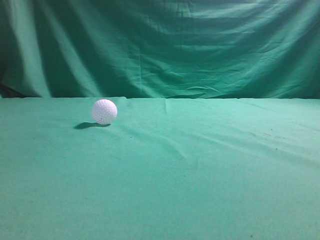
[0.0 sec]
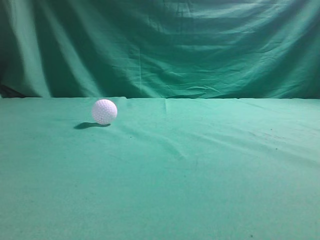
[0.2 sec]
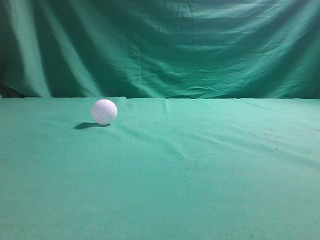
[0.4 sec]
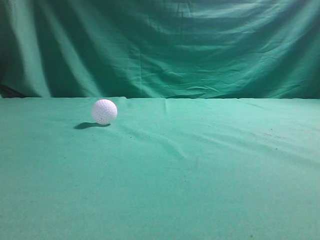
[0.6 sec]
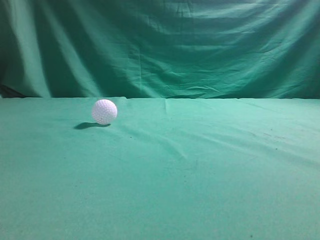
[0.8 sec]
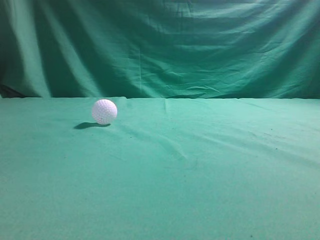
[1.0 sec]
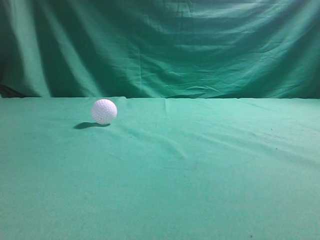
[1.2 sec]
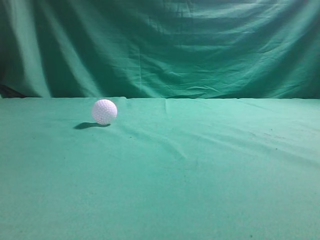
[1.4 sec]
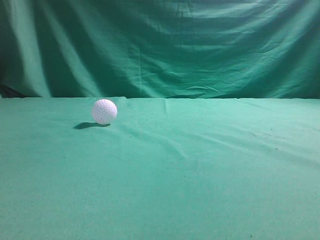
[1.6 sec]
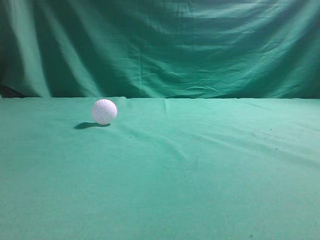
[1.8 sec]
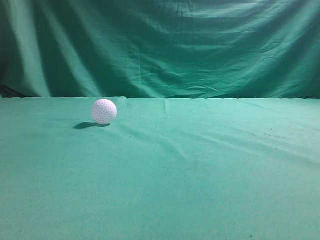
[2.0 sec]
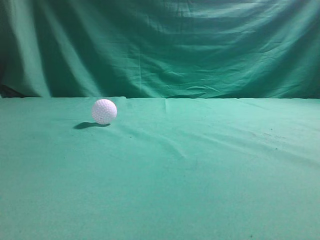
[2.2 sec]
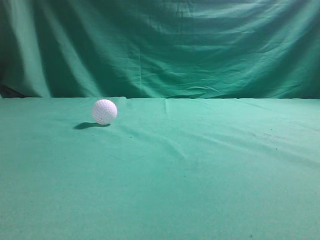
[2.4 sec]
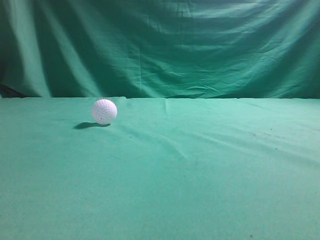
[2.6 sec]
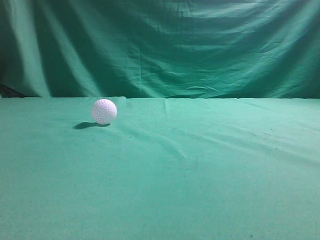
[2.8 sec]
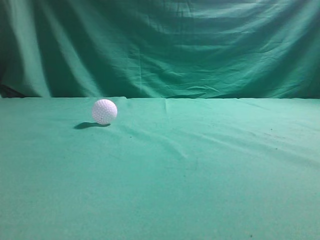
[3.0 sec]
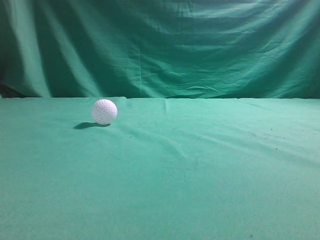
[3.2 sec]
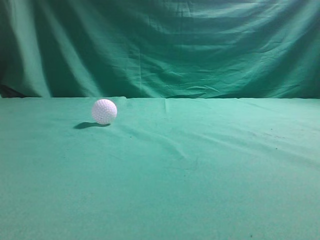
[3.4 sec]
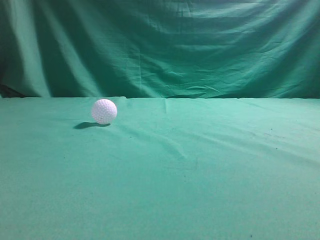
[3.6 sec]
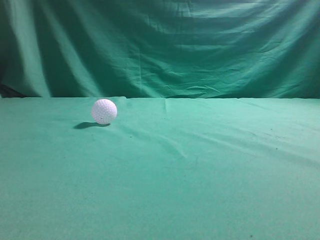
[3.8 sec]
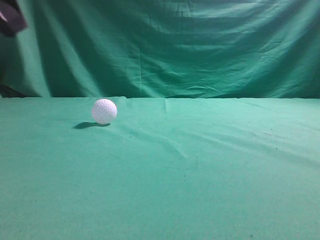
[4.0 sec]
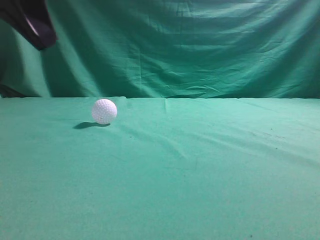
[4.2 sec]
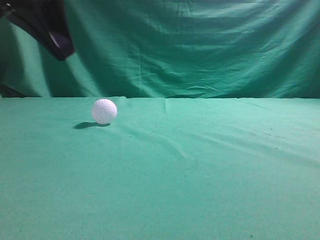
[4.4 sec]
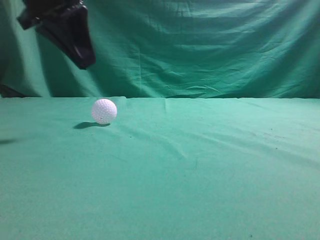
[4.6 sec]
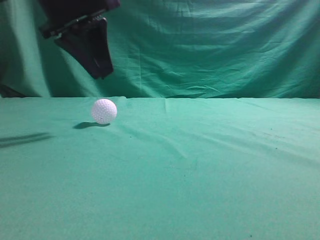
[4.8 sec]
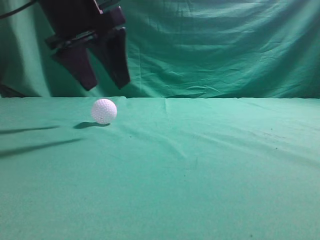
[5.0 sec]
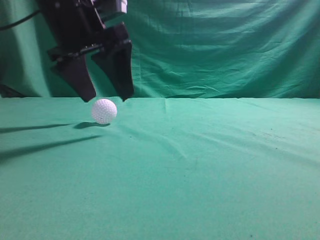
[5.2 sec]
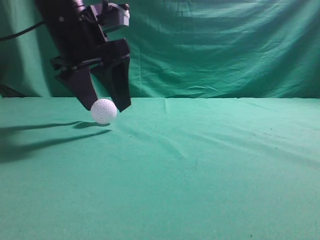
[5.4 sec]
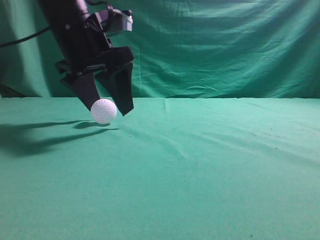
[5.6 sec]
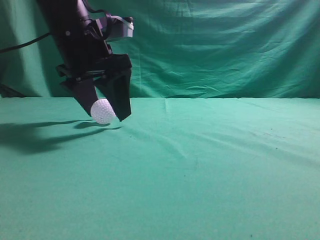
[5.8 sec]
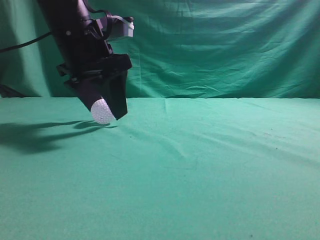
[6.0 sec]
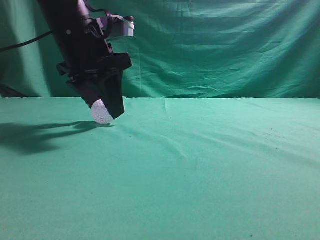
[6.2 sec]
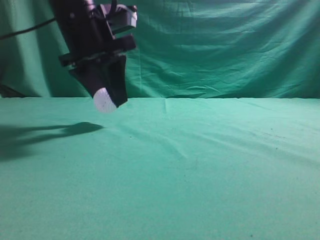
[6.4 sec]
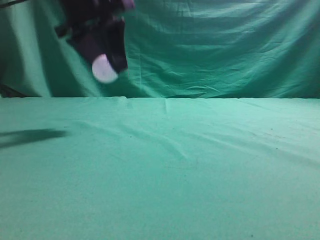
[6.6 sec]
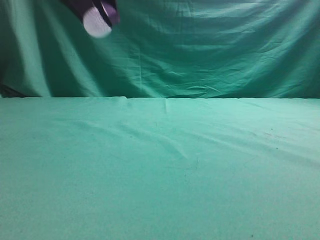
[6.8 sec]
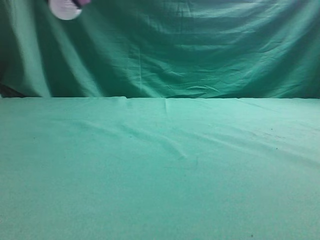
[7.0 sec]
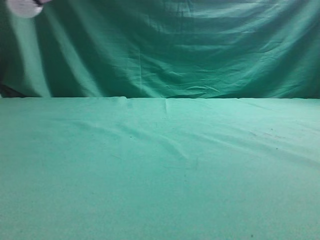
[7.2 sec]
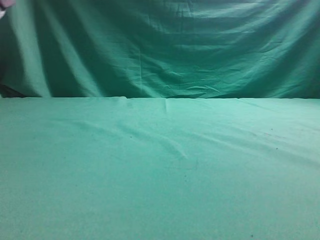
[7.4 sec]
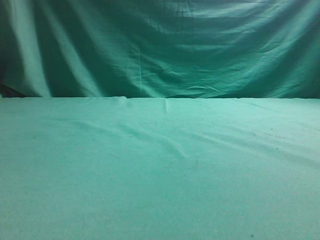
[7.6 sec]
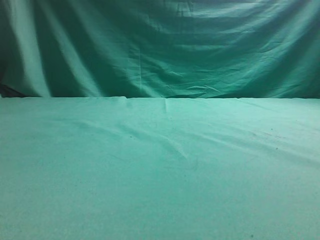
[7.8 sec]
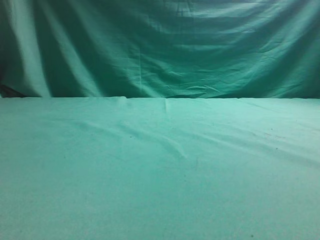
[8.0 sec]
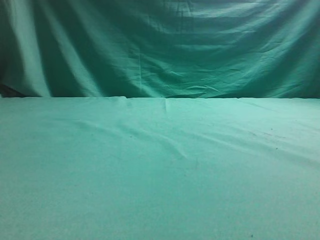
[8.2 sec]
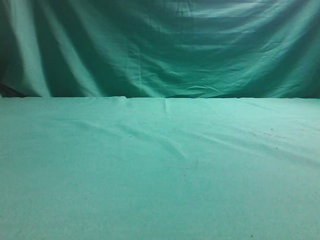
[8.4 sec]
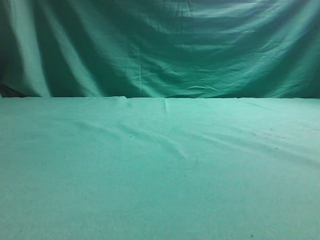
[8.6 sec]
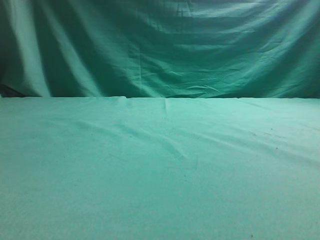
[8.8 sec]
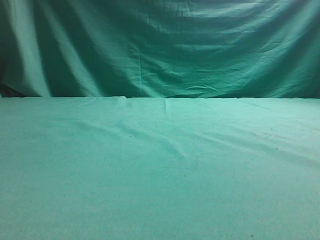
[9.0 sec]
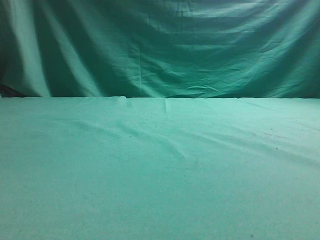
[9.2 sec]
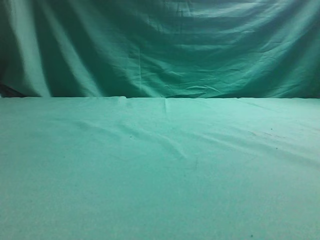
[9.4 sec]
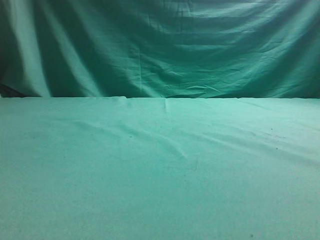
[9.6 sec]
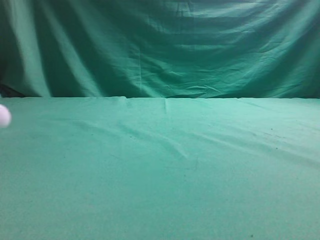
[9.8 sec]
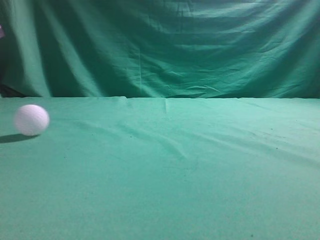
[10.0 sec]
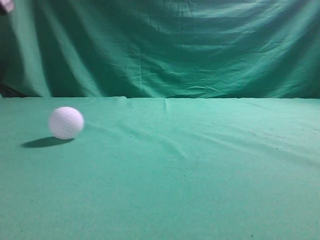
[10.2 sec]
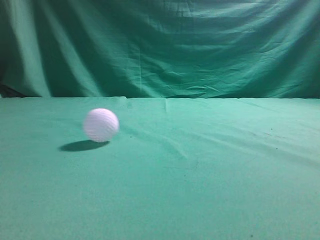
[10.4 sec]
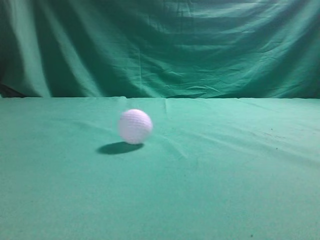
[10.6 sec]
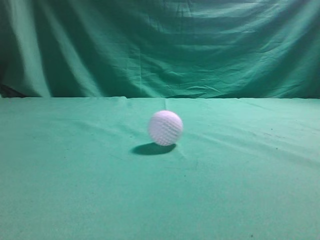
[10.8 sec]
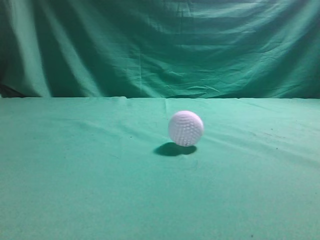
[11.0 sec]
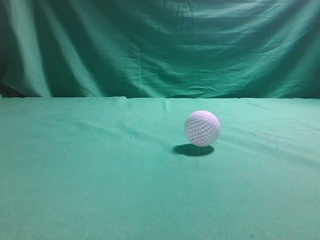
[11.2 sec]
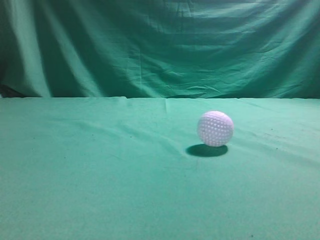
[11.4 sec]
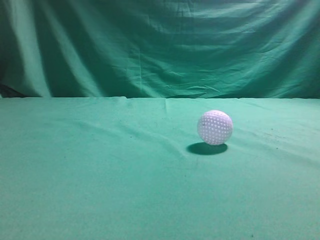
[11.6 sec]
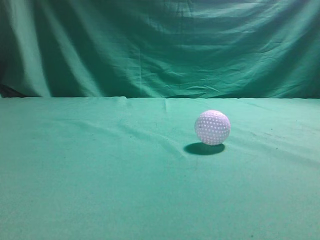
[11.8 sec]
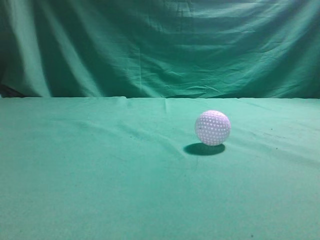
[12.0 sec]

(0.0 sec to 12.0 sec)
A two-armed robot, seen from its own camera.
Task of the whole recording: pick up the ball and place it on the plate, then pick up the ball from the plate and put it in the center of the table.
Step, 0.0 sec - 6.2 sec: Grab the spherical object with your left arm.
Step, 6.4 sec - 9.2 sec: Place the sphere on the white object.
3.0 sec - 4.4 sec: The left gripper goes some 25 cm forward and to the right.
4.4 sec - 6.0 sec: The left gripper goes some 10 cm forward, downward and to the right, and opens its fingers.
6.0 sec - 7.6 sec: The left gripper goes roughly 20 cm to the left, upward and backward; the right gripper moves upward, about 5 cm.
9.0 sec - 10.4 sec: The left gripper goes roughly 20 cm upward and to the right, and closes up.
10.4 sec - 12.0 sec: The left gripper moves backward, roughly 20 cm.

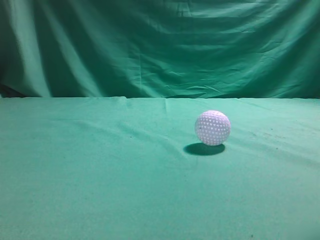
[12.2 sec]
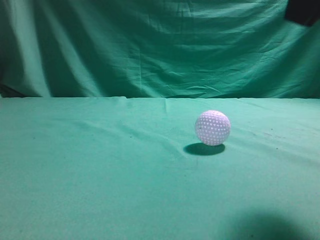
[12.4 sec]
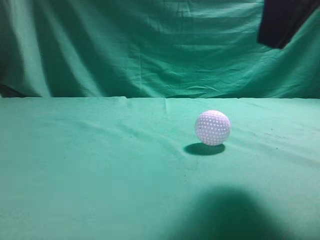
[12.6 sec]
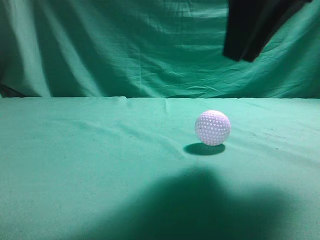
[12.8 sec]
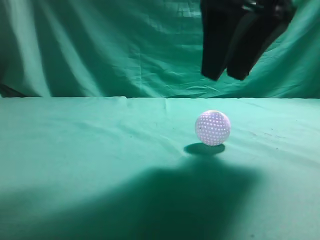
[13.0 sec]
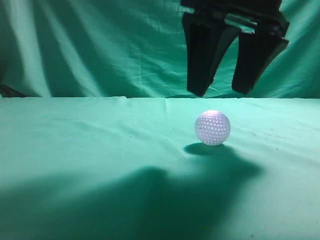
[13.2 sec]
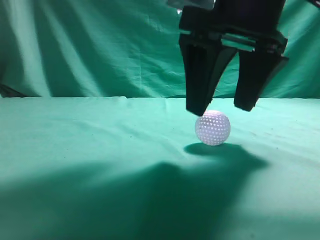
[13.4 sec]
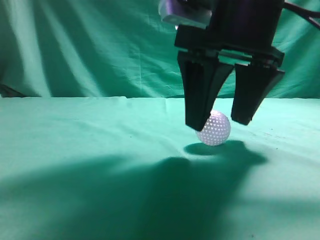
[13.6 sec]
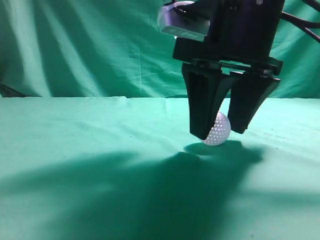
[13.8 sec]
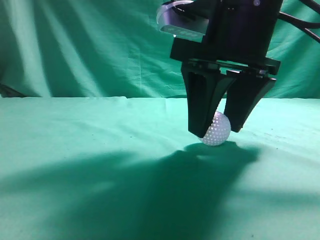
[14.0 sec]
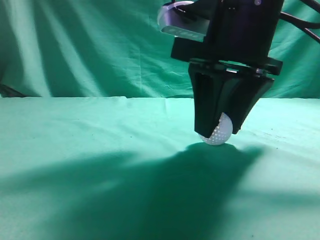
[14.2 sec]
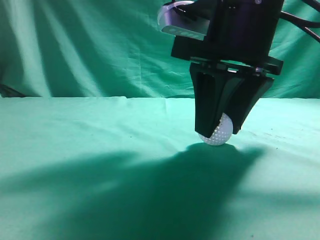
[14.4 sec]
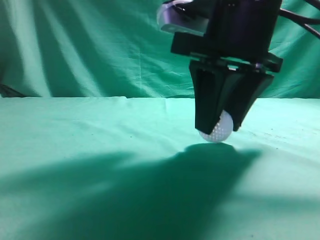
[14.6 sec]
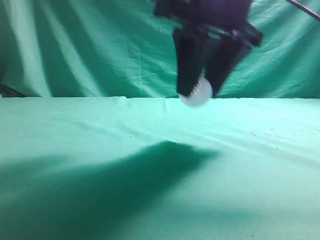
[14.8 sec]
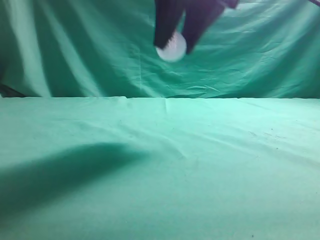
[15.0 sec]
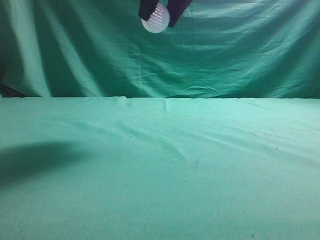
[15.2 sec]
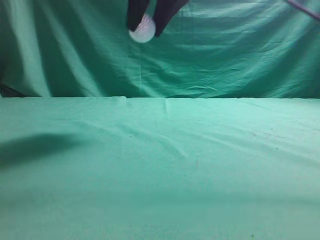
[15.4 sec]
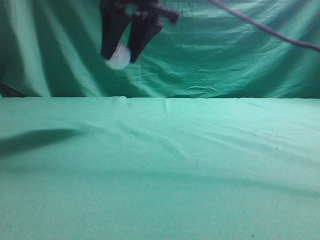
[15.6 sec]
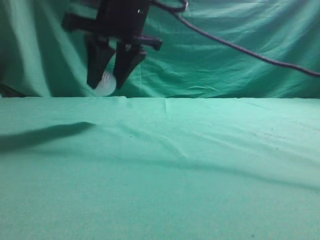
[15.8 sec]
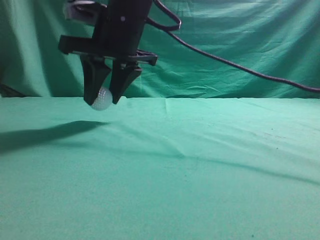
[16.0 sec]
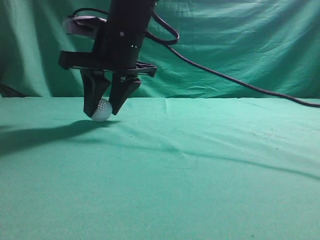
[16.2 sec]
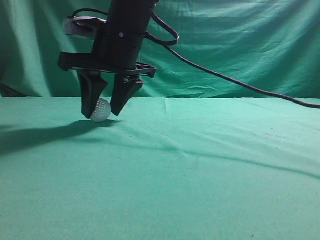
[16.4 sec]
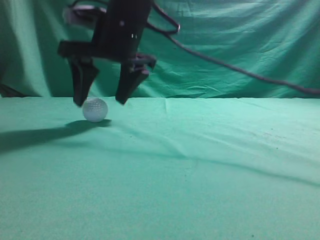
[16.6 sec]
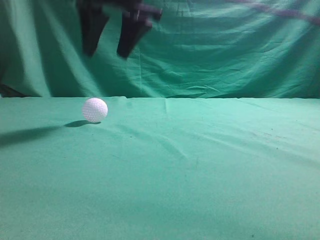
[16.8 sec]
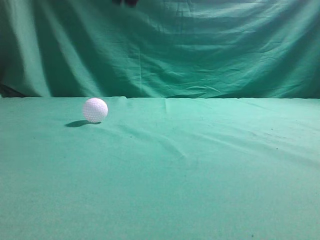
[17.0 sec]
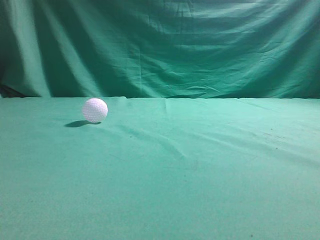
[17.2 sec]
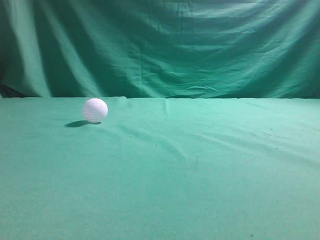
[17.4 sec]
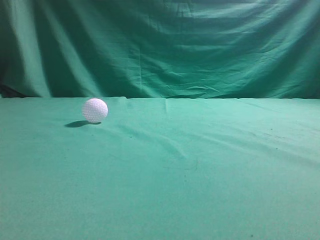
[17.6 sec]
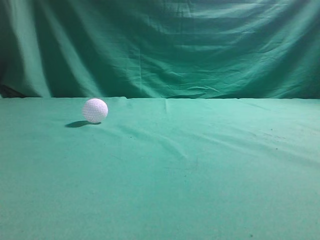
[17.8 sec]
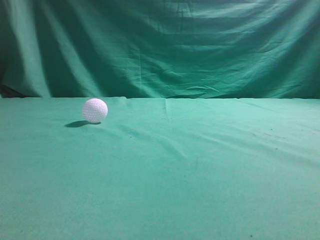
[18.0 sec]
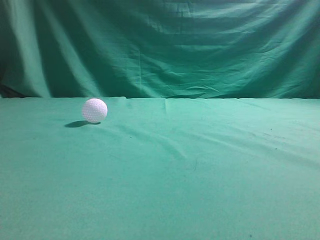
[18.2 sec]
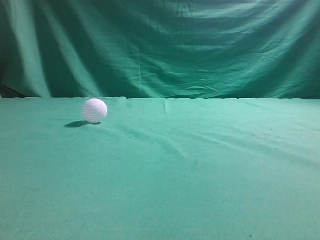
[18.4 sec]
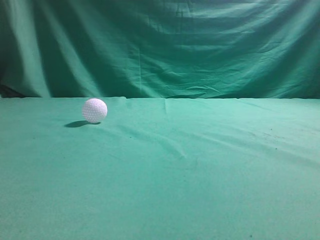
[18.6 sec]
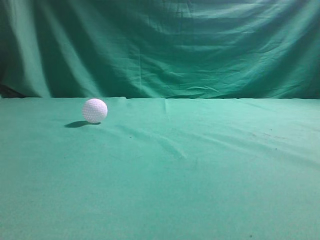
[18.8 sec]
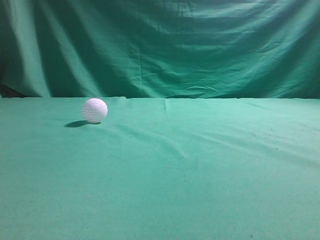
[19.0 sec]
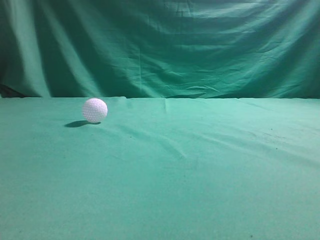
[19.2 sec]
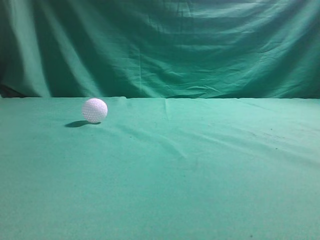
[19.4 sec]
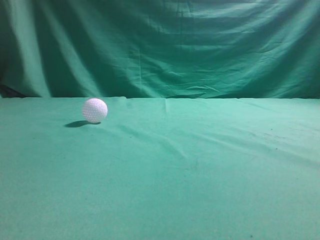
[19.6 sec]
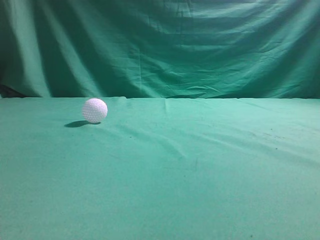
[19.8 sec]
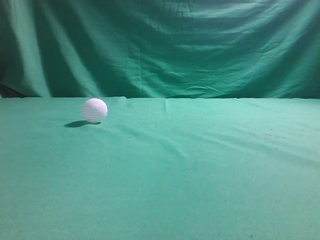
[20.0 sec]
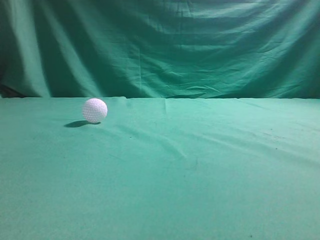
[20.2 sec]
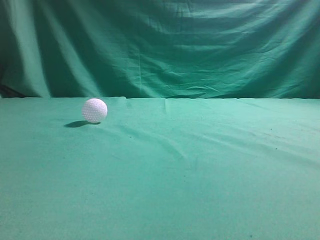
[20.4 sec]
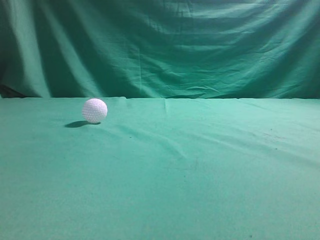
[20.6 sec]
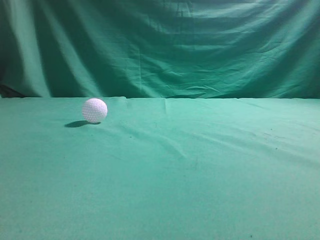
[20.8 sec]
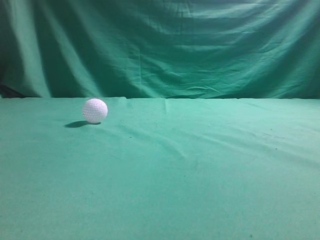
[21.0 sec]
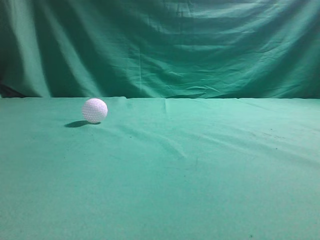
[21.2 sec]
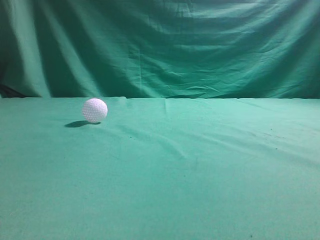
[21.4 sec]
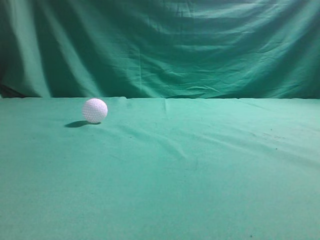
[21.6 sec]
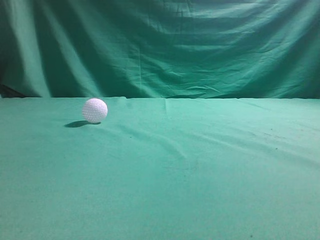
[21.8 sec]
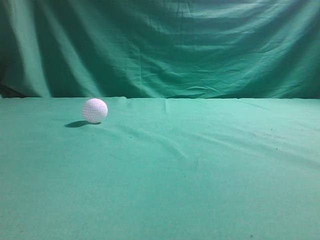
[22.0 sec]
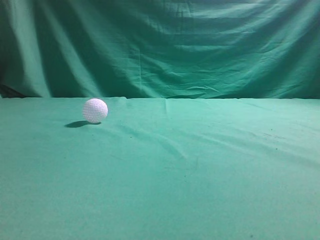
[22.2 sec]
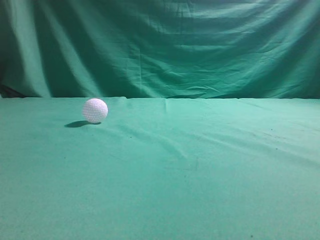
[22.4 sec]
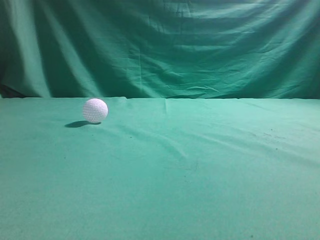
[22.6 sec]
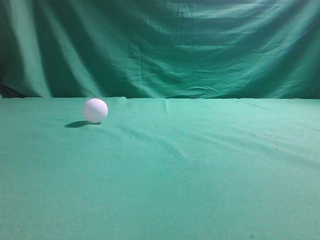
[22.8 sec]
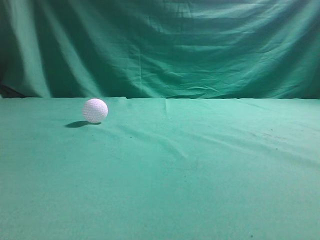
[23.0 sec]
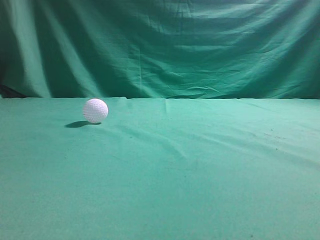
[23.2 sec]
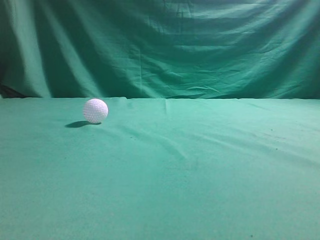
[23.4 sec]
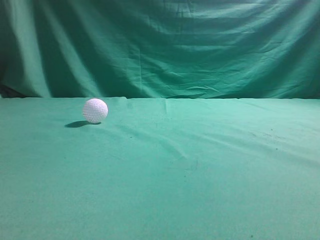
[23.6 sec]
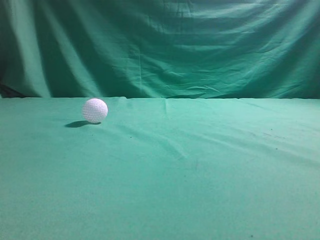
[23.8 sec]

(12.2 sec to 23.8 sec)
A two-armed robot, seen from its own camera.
Task of the whole recording: pick up the ball and place it on the plate, then pick up the ball from the plate and put it in the center of the table.
Step, 12.2 sec - 14.6 sec: Grab the rolling spherical object.
Step, 14.8 sec - 16.6 sec: Put the picked-up object on the table.
12.2 sec - 13.6 sec: The right gripper moves to the left, downward and forward, about 15 cm, and opens up.
13.6 sec - 15.0 sec: The right gripper moves upward, roughly 10 cm, and closes its fingers.
15.0 sec - 16.6 sec: The right gripper shifts about 15 cm to the left, downward and forward, and opens.
16.6 sec - 18.0 sec: The right gripper is displaced upward, to the right and backward by roughly 40 cm, and closes, while the left gripper moves backward, about 10 cm.
